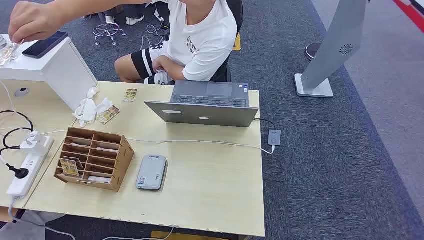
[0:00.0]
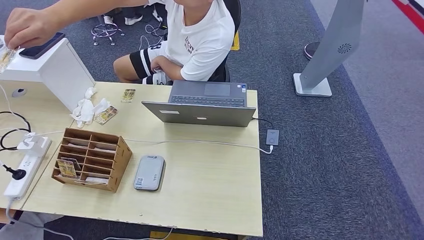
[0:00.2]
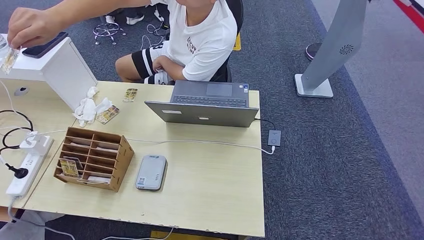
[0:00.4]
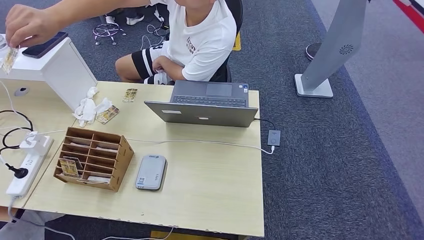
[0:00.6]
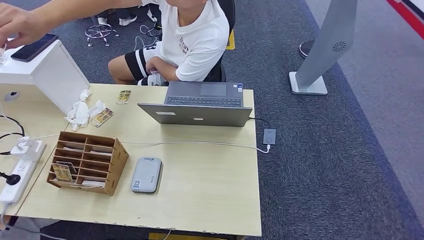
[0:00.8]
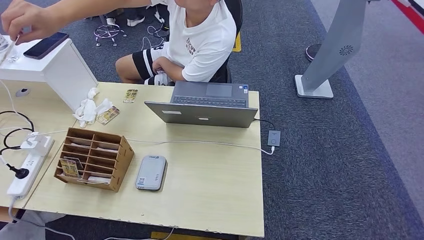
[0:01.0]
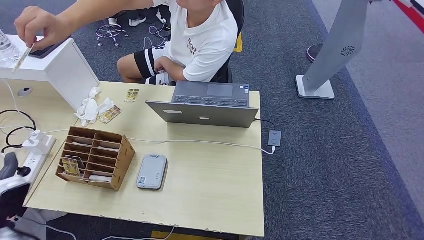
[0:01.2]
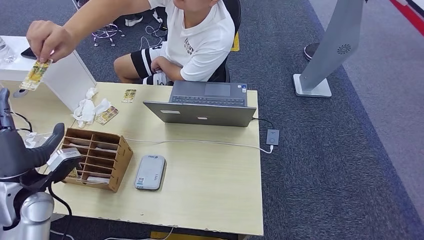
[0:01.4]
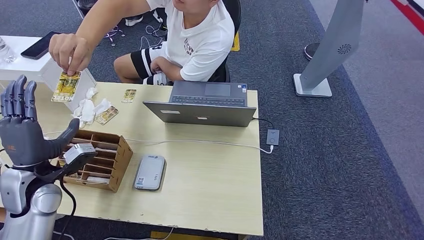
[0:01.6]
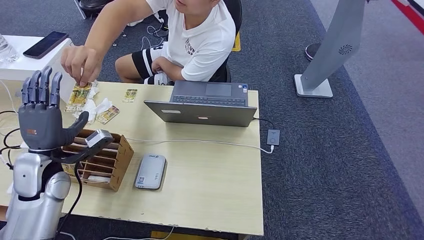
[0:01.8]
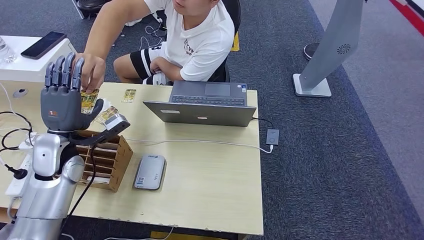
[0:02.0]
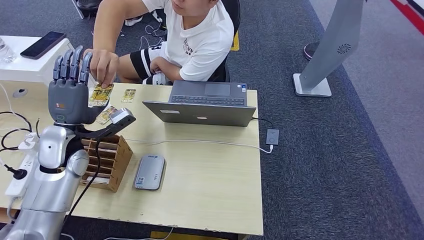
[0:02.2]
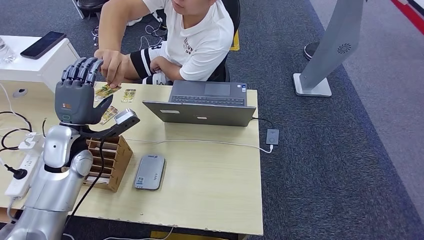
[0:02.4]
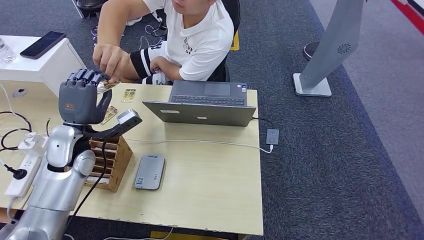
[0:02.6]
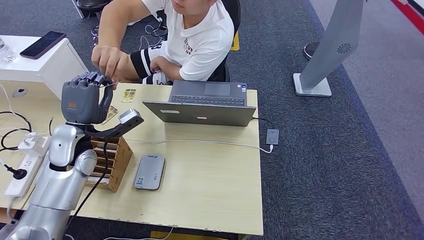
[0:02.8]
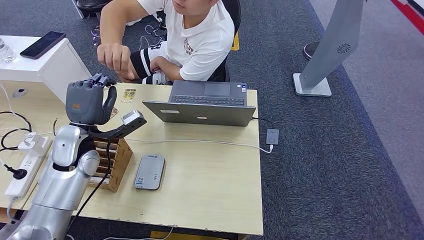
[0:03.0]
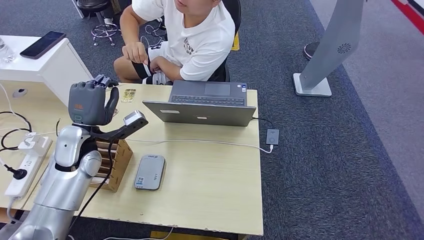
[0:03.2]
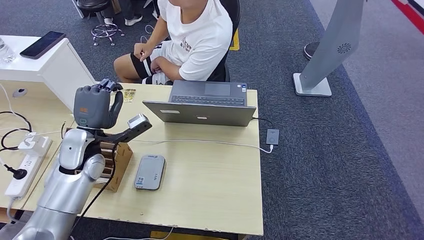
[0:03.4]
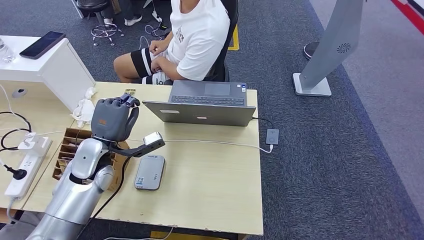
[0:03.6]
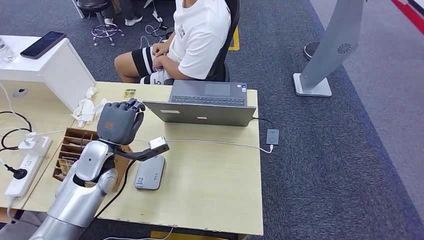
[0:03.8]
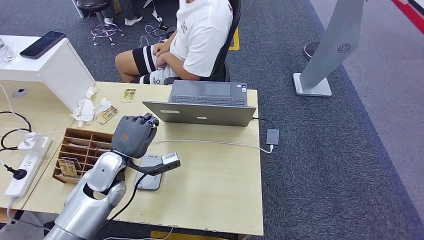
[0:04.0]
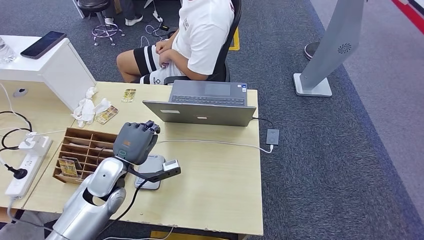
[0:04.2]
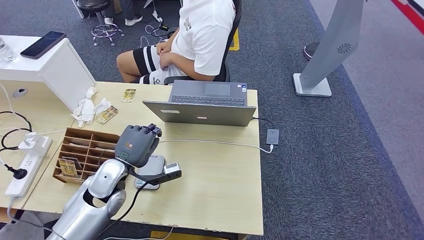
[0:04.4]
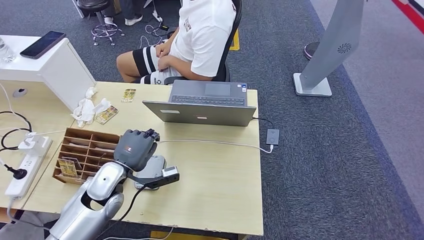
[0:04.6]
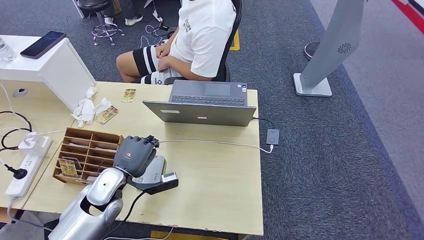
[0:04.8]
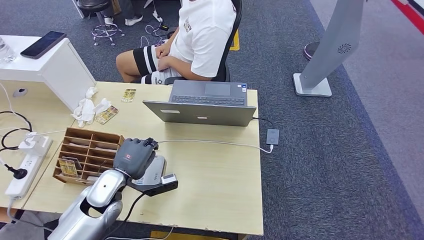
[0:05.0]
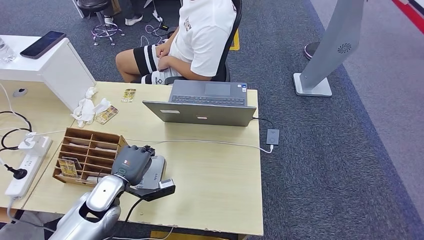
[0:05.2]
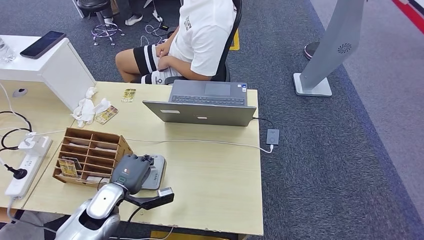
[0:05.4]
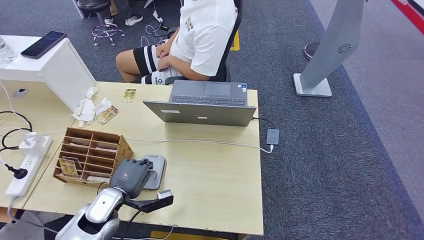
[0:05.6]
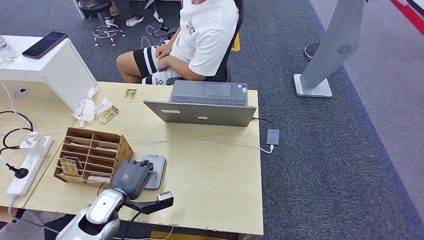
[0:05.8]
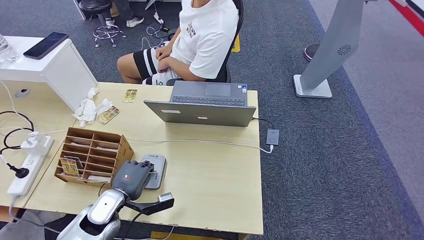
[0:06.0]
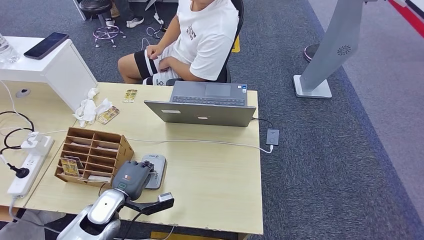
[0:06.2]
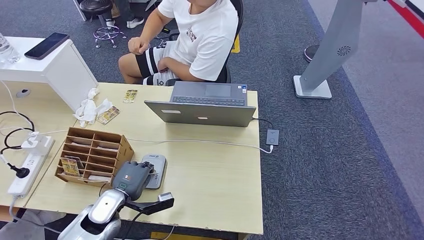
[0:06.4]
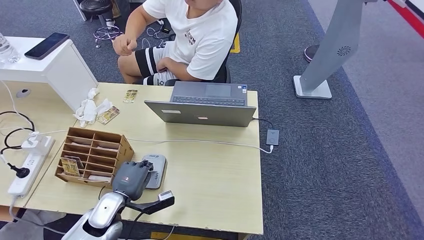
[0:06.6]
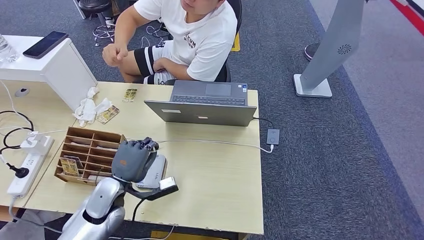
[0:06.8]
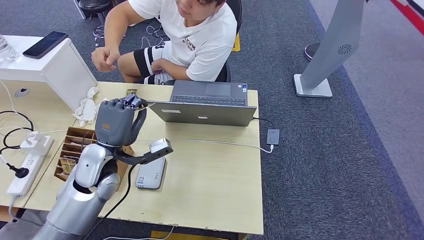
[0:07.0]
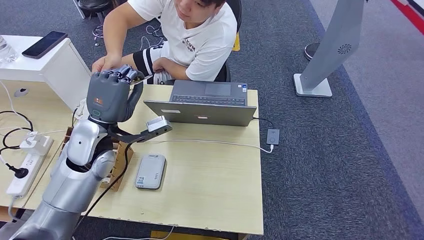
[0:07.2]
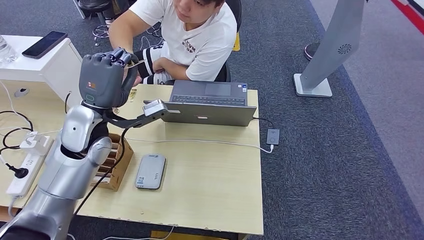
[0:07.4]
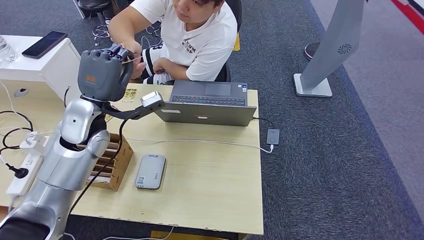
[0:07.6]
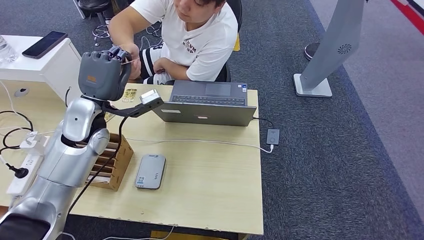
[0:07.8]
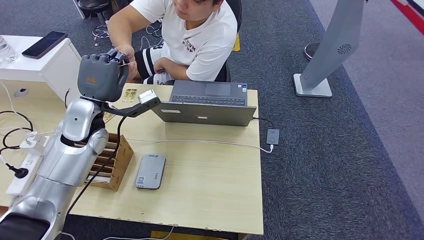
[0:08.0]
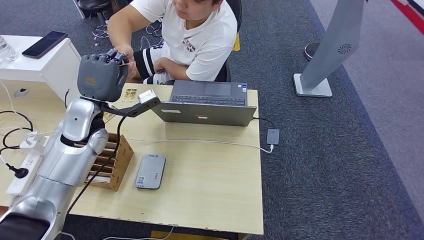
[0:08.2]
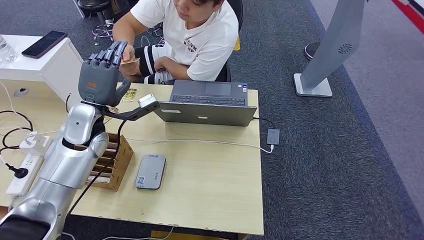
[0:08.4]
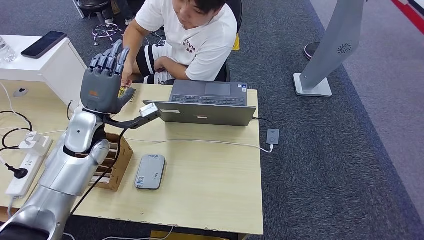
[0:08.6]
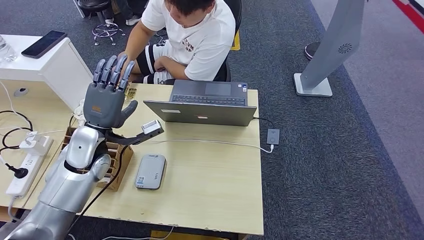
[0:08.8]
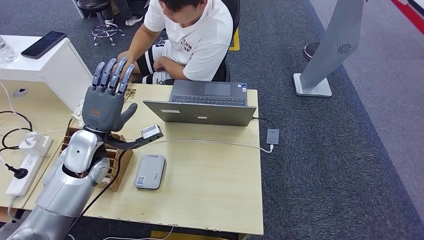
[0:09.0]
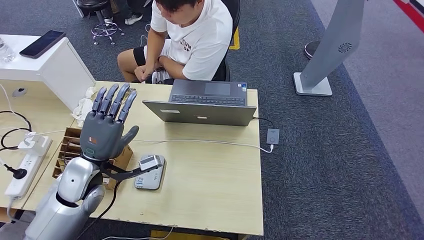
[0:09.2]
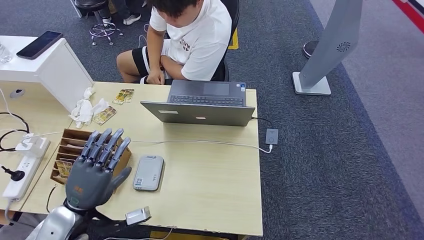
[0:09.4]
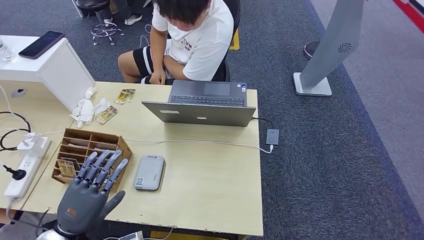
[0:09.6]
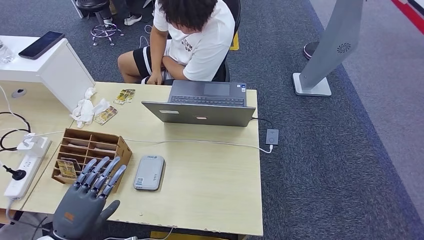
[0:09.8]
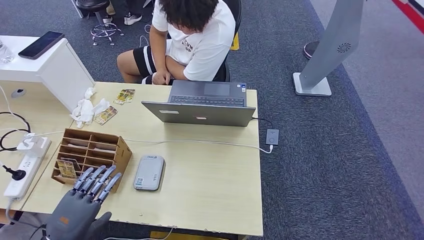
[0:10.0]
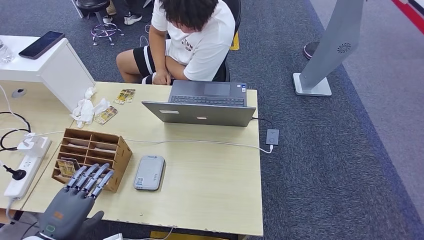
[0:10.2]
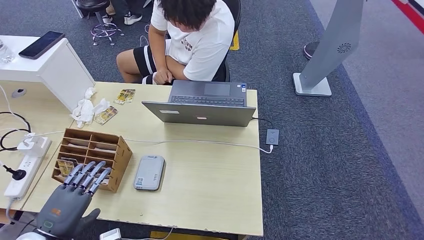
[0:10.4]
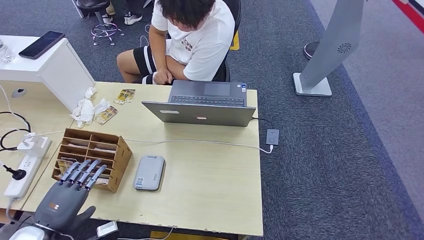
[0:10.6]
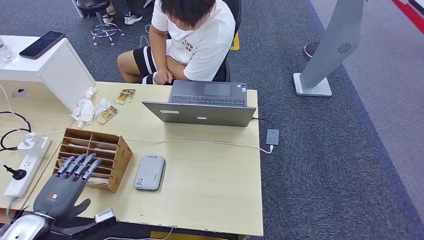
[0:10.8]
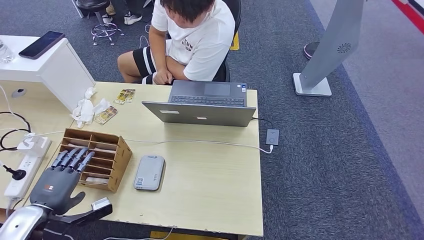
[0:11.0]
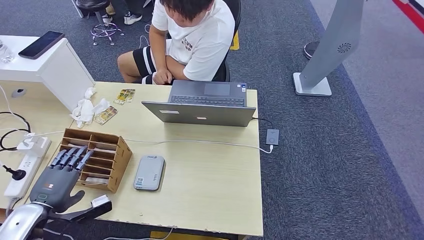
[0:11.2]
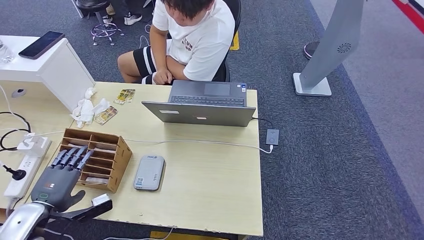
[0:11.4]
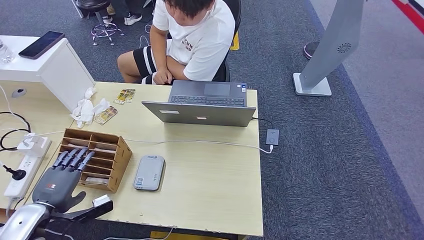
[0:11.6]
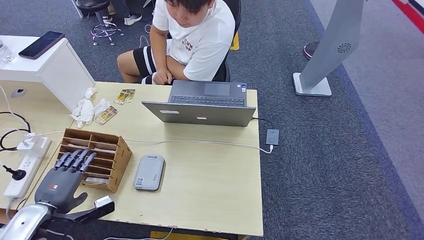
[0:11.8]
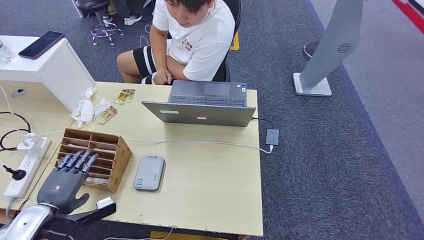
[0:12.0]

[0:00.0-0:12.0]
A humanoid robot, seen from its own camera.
Step, 0:00.0 to 0:04.8: Take the ID card from the person's hand.
Step, 0:05.0 to 0:06.0: Place the ID card on the card reader.
Step, 0:06.4 to 0:09.4: Hand the ID card to the person.
0:01.6 to 0:03.0: The left hand shifts roughly 10 cm forward and to the right.
0:04.4 to 0:06.0: The left hand goes roughly 10 cm downward and backward.
0:07.6 to 0:09.0: The left hand is displaced downward by approximately 5 cm.
0:09.0 to 0:10.4: The left hand travels backward by approximately 25 cm.
0:10.4 to 0:12.0: The left hand shifts some 5 cm forward.

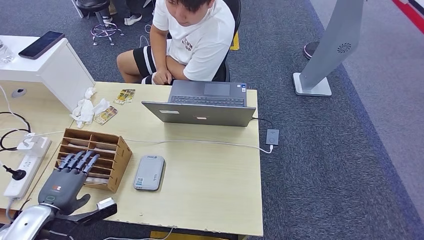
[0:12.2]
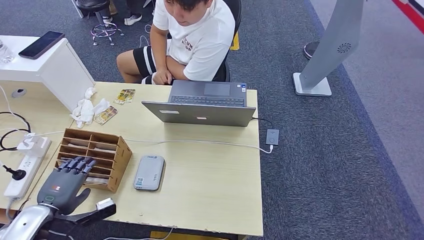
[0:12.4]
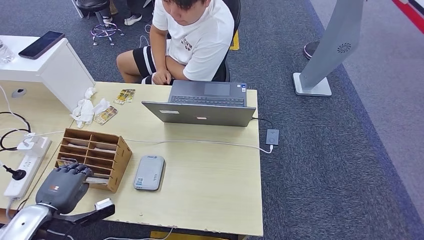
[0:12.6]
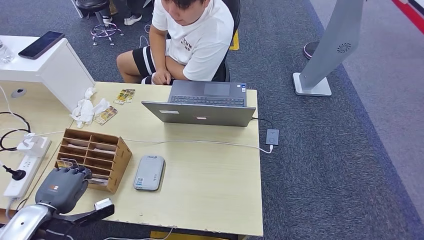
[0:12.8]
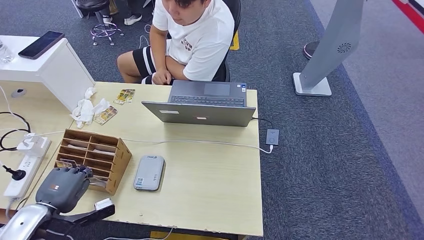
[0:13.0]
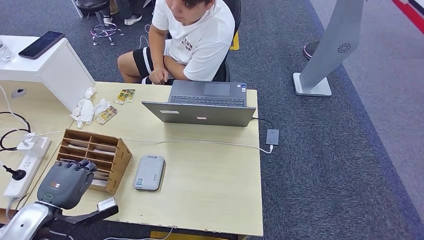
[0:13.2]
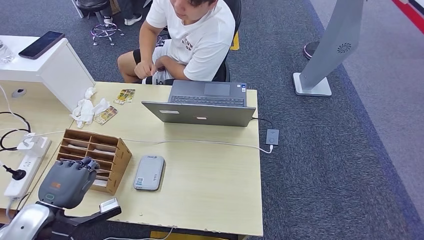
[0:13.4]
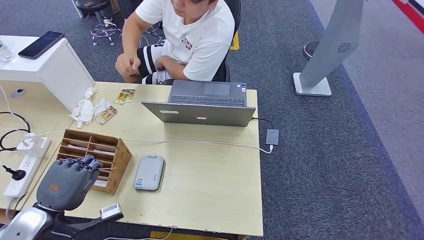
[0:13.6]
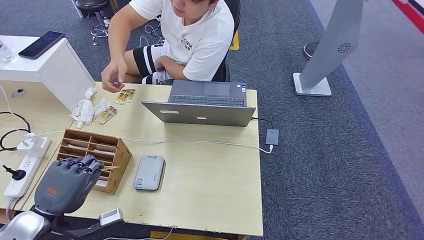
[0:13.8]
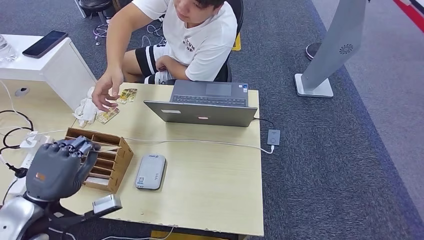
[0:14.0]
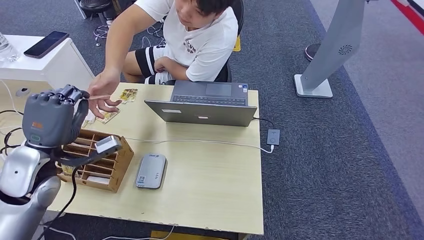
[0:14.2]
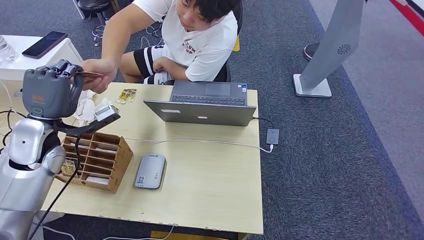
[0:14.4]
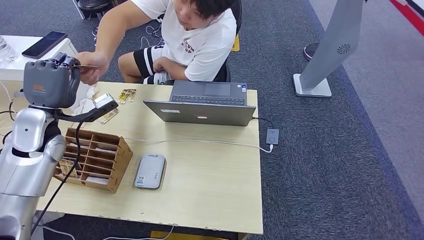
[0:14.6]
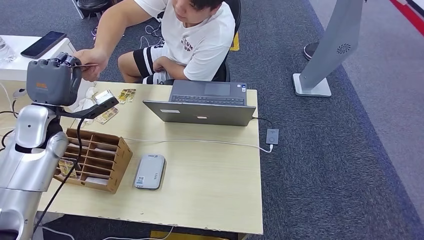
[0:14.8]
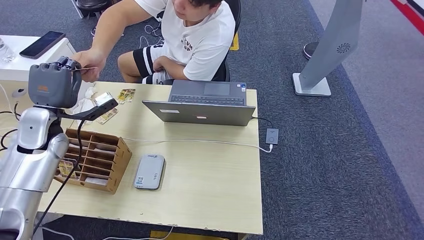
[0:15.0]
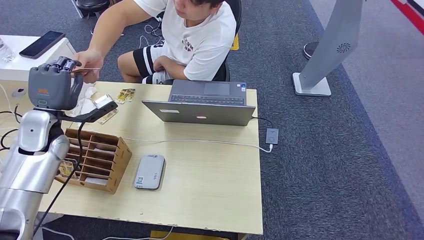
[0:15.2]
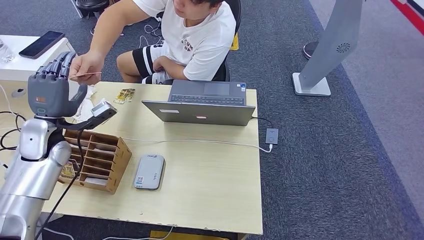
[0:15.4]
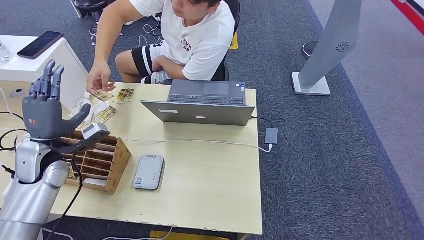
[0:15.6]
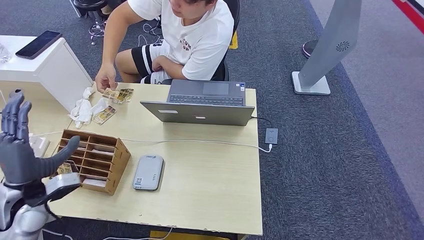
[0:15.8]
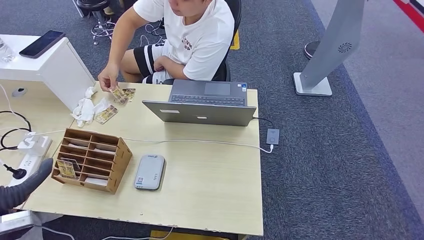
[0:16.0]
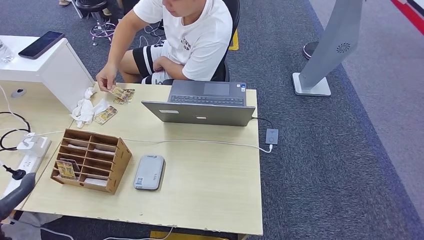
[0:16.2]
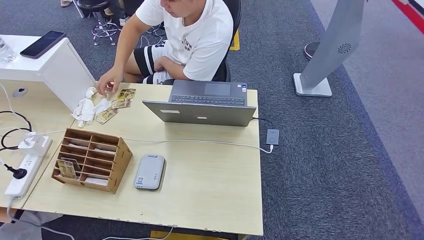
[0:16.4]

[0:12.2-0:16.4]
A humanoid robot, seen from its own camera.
Step, 0:14.0 to 0:16.4: Hand the room key to the person.
0:12.2 to 0:13.6: The left hand moves about 5 cm.
0:13.6 to 0:15.0: The left hand is displaced forward by some 20 cm.
0:15.0 to 0:16.4: The left hand is displaced backward by some 30 cm.
